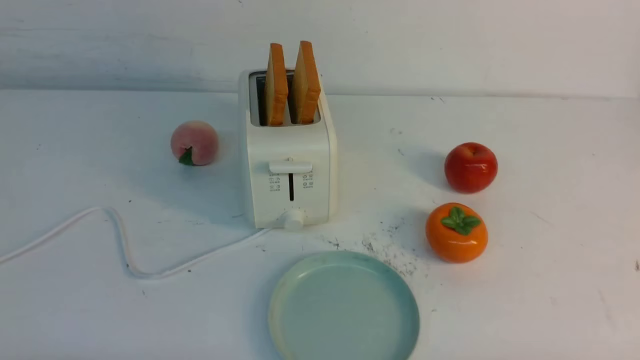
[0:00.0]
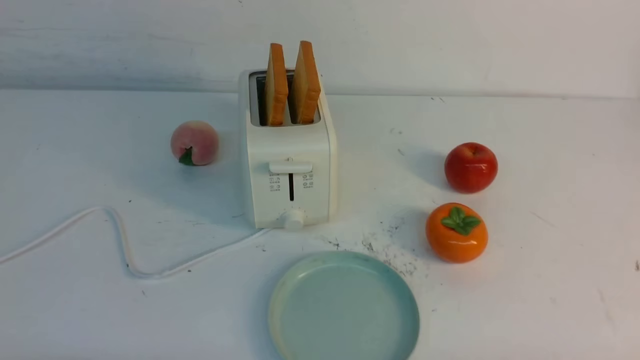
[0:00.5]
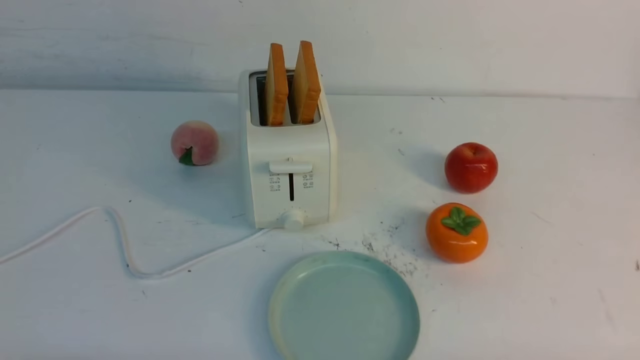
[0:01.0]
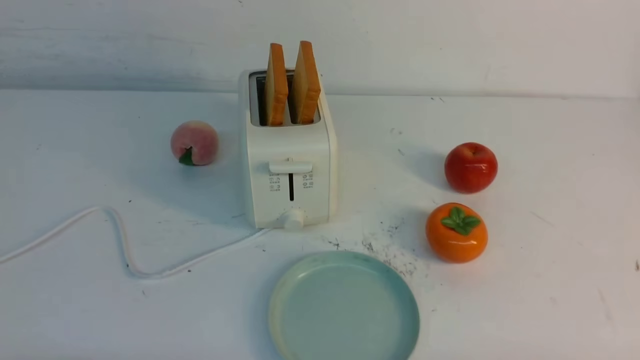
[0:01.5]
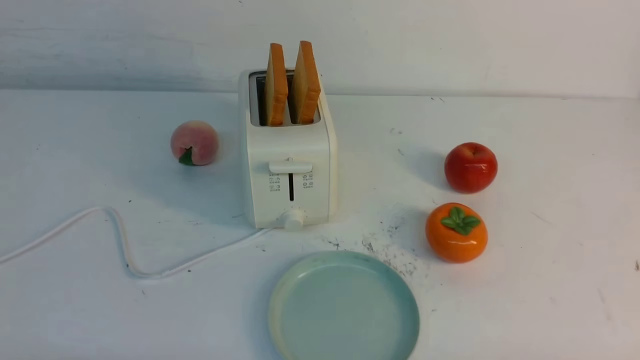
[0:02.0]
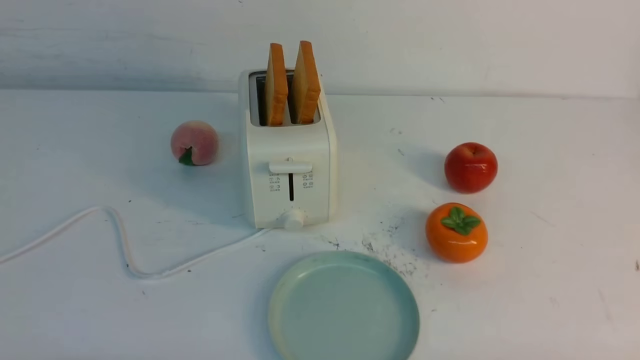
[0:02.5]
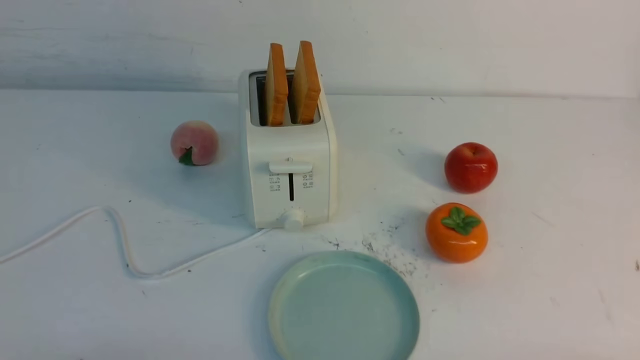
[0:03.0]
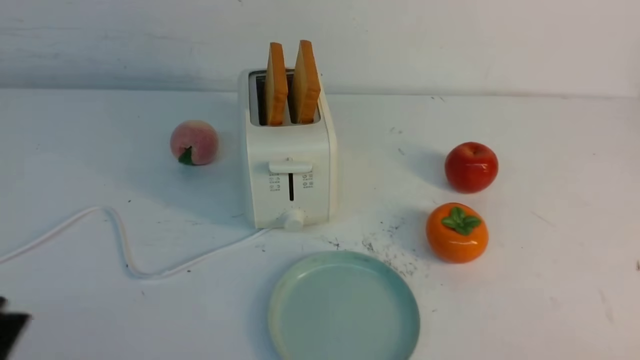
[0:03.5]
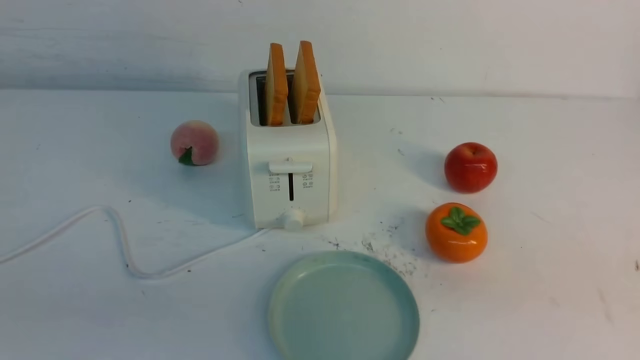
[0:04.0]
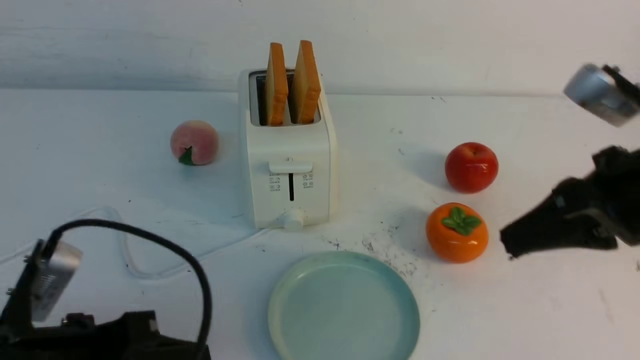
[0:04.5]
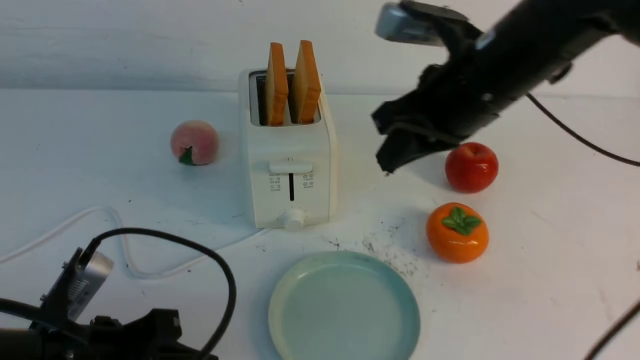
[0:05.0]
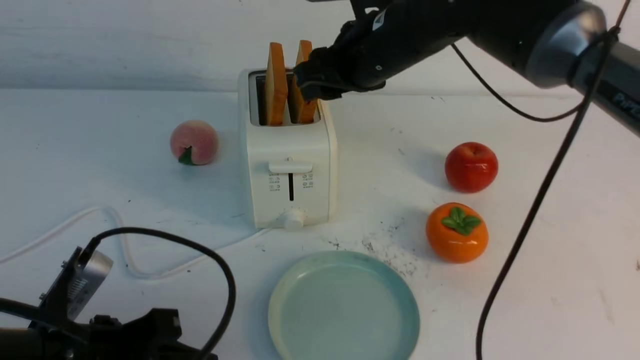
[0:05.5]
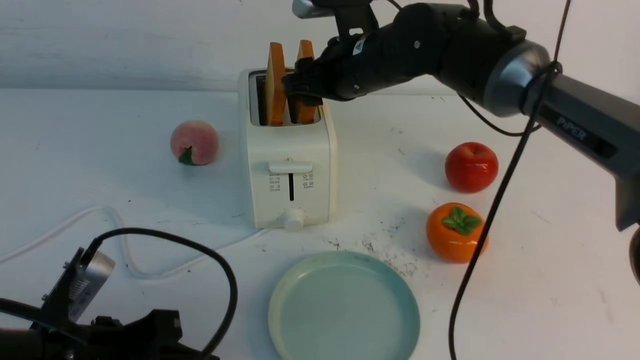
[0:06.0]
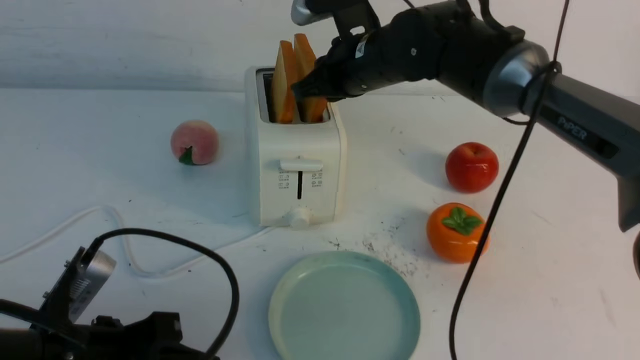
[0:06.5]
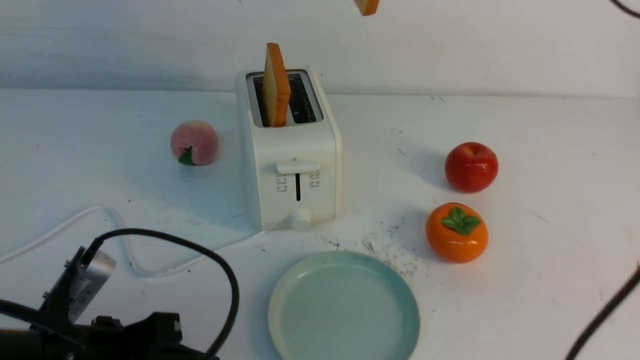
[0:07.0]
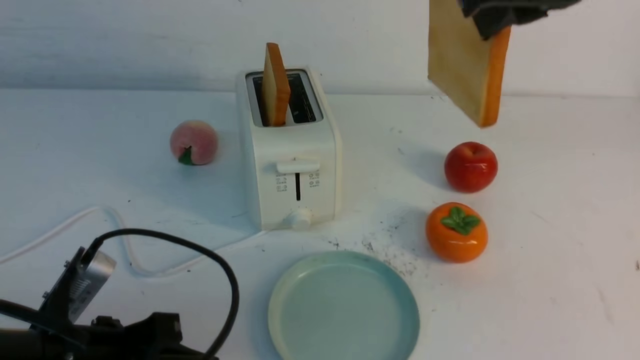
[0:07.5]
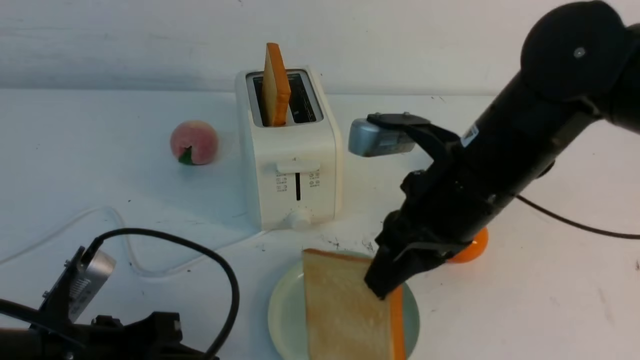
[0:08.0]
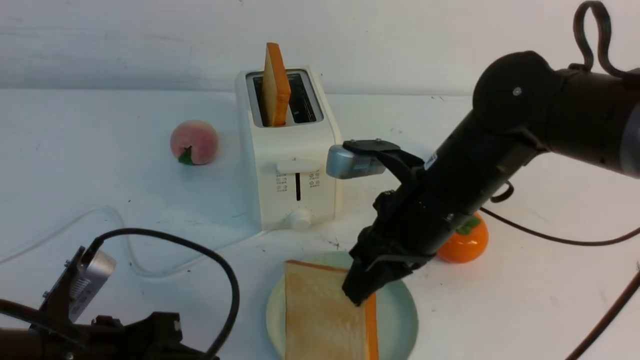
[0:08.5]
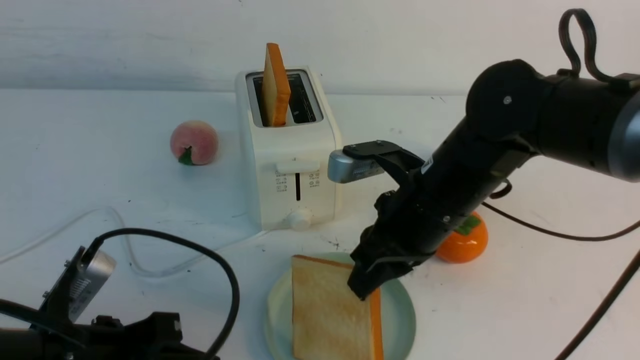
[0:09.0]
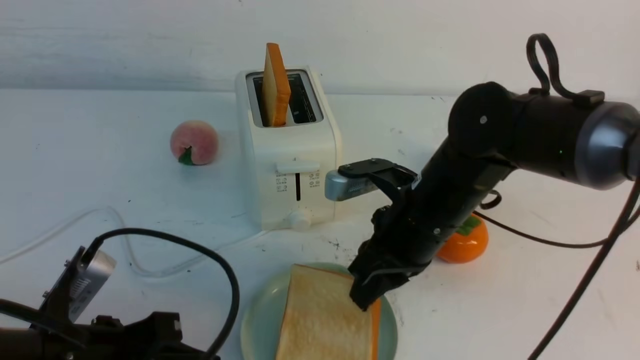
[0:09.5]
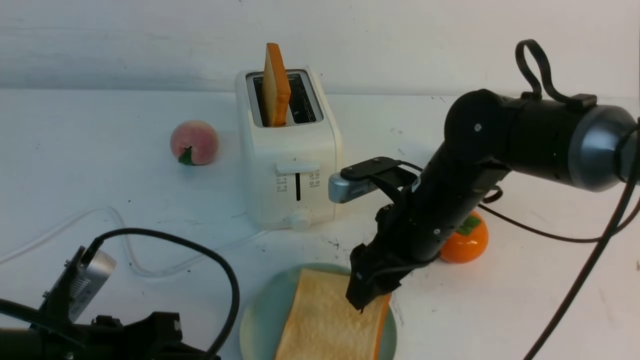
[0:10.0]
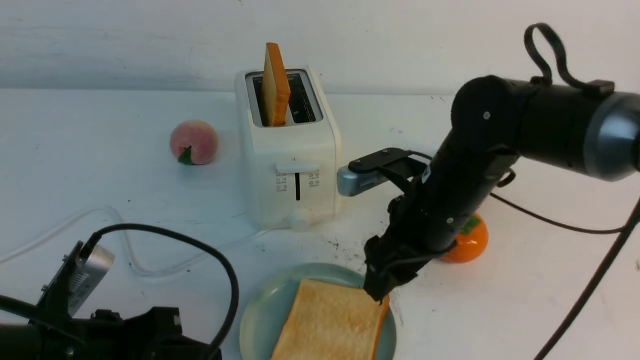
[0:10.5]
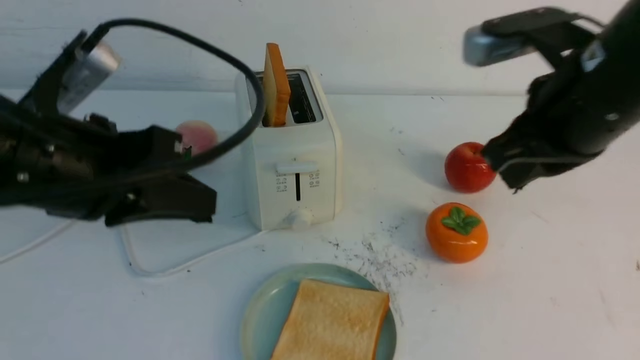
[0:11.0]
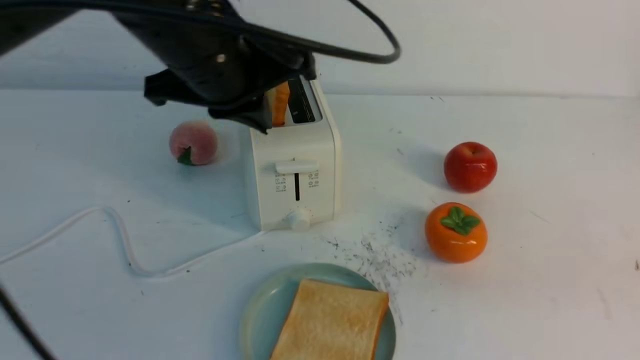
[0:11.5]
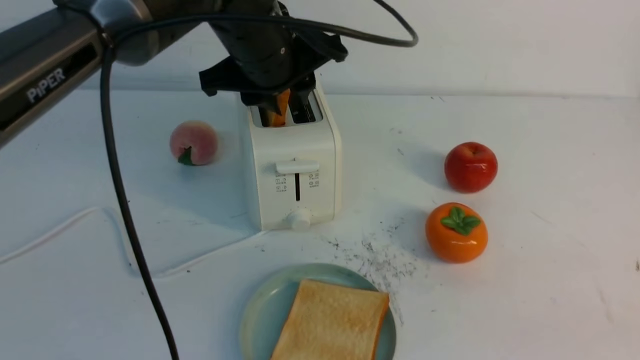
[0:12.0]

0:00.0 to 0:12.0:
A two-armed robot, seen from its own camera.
Task of the whole recording: take toasted bread from bread machine on white table place on plate.
Step, 0:00.0 to 0:06.5: use the right arm to take out a slice of bread.
Step, 0:07.0 to 0:10.0: use the right arm to put a slice of bread into the plate.
0:00.0 to 0:02.0: Both grippers stay put.
0:04.0 to 0:06.0: The left gripper heads downward, forward and to the right, covering some 15 cm. The right gripper shifts approximately 40 cm forward and to the left, and opens.
0:06.0 to 0:08.0: The right gripper travels backward by some 15 cm, and closes up.
0:08.0 to 0:10.0: The right gripper goes approximately 10 cm downward, and opens up.
0:10.0 to 0:12.0: The left gripper shifts about 30 cm forward, upward and to the right, and opens its fingers. The right gripper goes approximately 35 cm backward, to the right and upward, and closes.

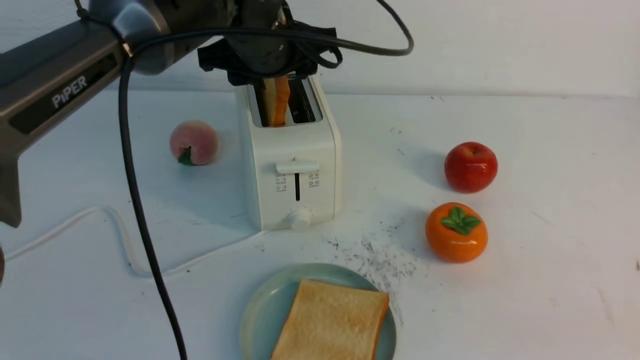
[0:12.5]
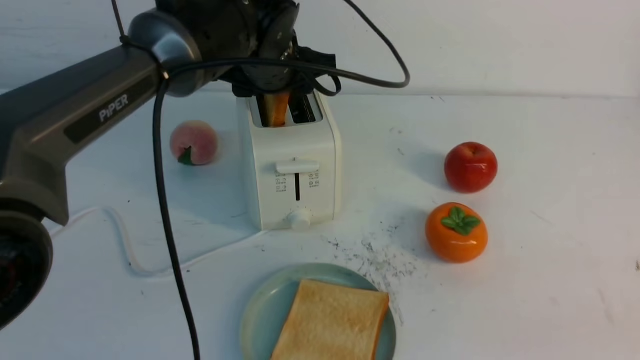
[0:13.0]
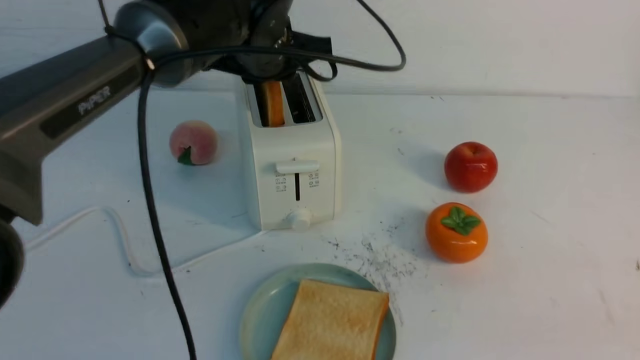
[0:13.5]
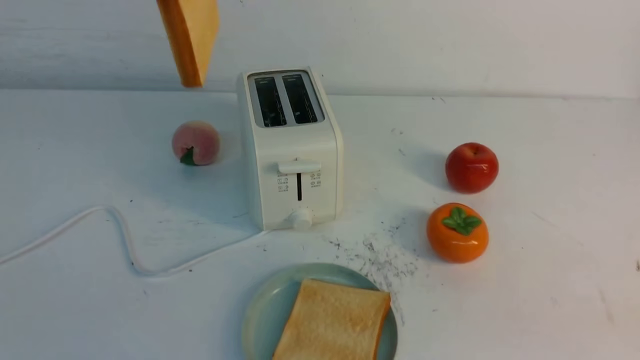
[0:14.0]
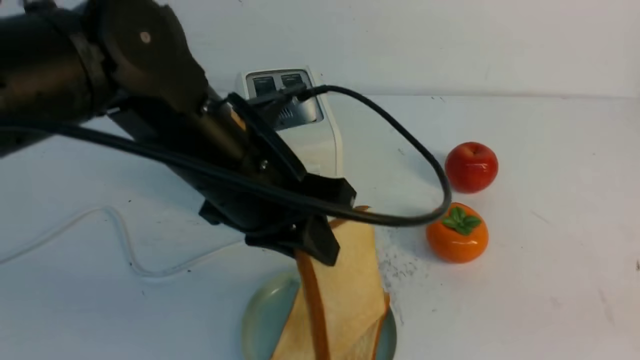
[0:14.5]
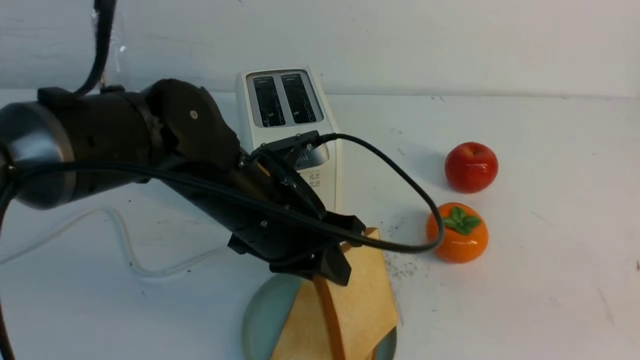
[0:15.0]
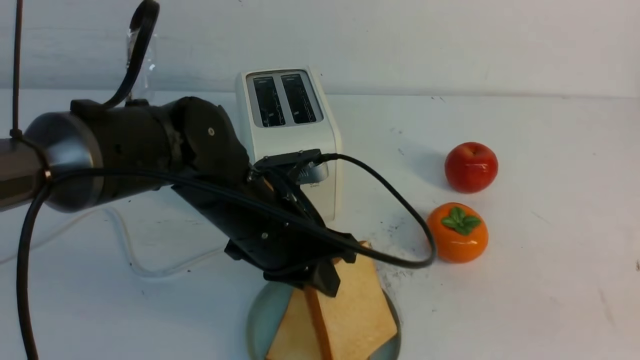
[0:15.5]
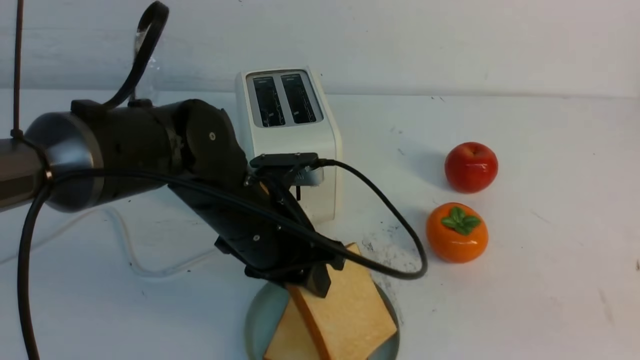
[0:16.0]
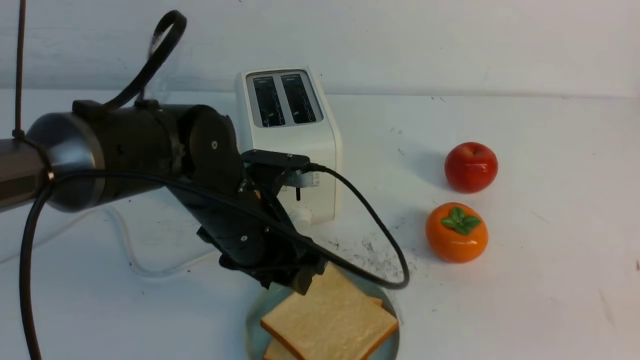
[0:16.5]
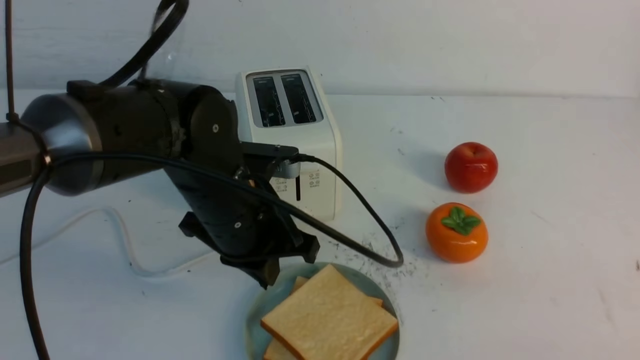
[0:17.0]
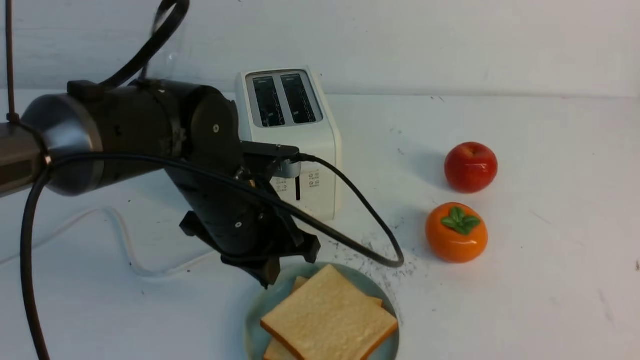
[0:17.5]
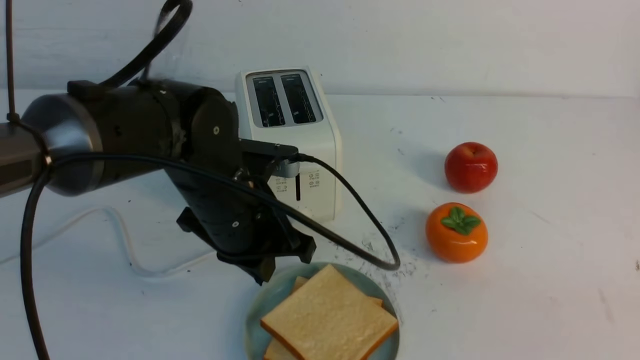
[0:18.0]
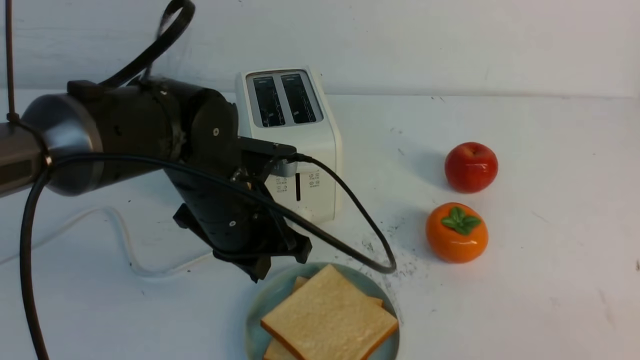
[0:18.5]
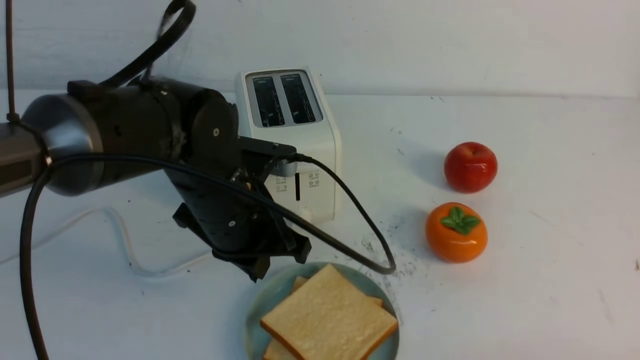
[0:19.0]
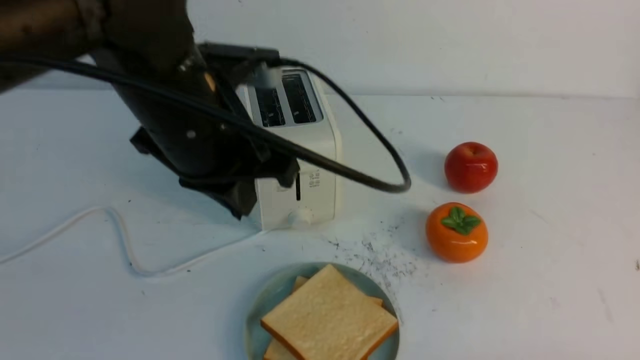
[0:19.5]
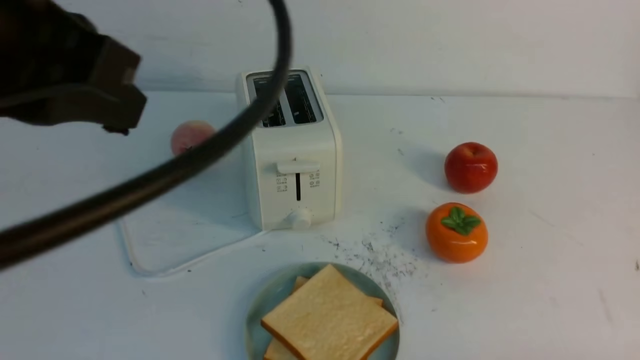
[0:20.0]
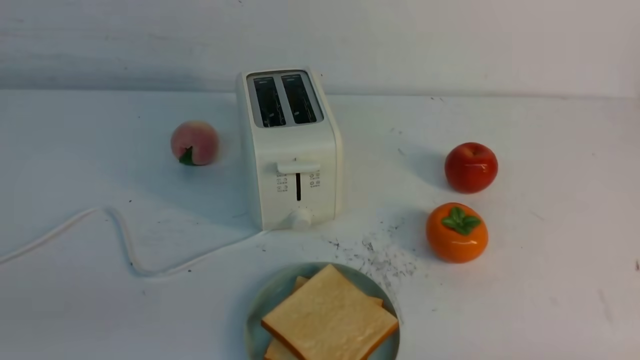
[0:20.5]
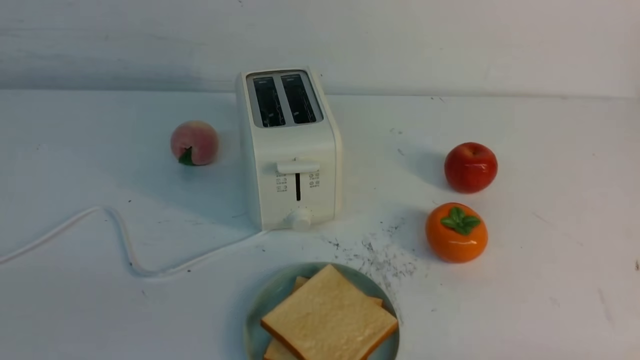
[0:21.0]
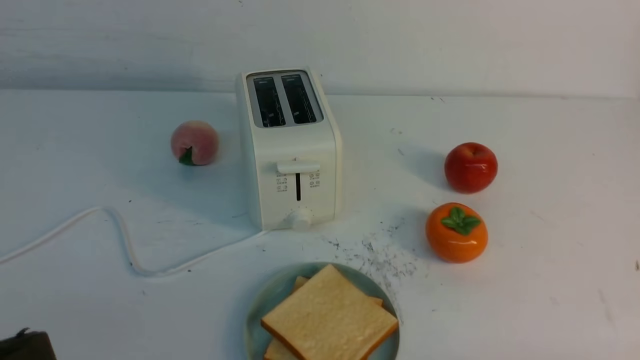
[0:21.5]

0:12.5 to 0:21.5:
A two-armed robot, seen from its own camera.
Task of the whole recording: take toasted bread from bread machine on white table place on plate.
Step, 0:14.0 to 0:17.0: use the left arm to put a slice of bread into the empty plate.
0:12.5 to 0:14.5: The left gripper moves backward, some 15 cm, and closes.
0:14.5 to 0:17.0: The left gripper heads downward, covering approximately 10 cm, and opens and closes again.
0:17.0 to 0:19.5: The right gripper heads downward, covering about 15 cm; the left gripper travels upward by roughly 10 cm.
0:19.5 to 0:21.5: The left gripper heads backward and to the left, covering roughly 25 cm.
